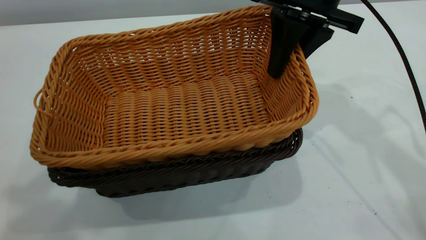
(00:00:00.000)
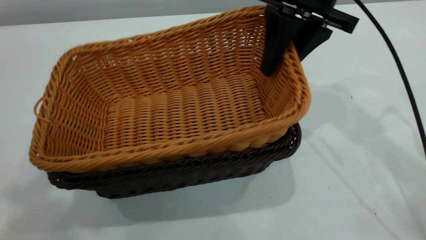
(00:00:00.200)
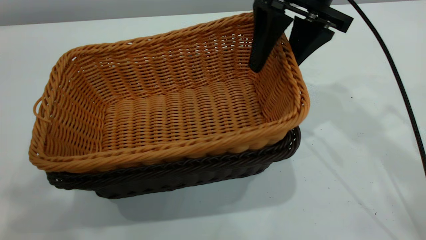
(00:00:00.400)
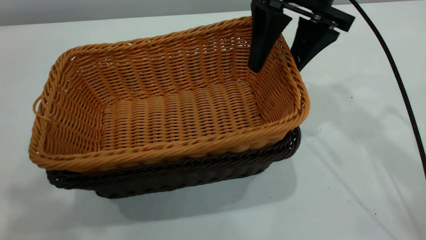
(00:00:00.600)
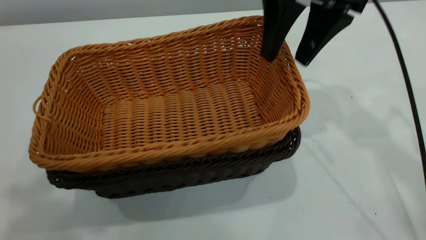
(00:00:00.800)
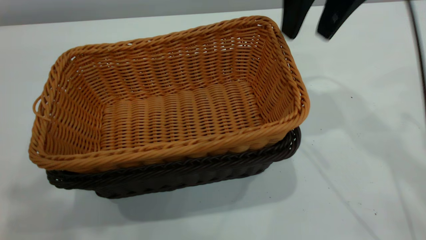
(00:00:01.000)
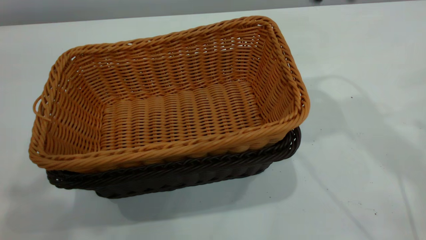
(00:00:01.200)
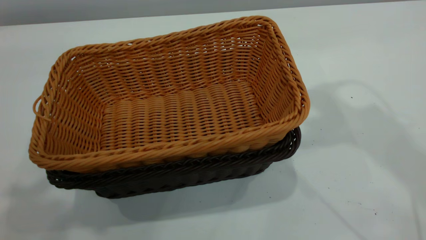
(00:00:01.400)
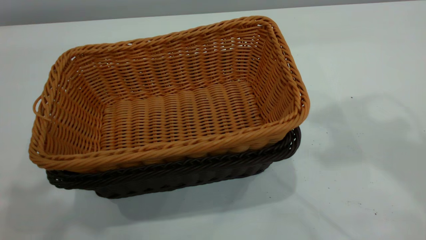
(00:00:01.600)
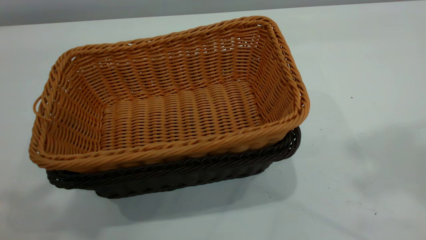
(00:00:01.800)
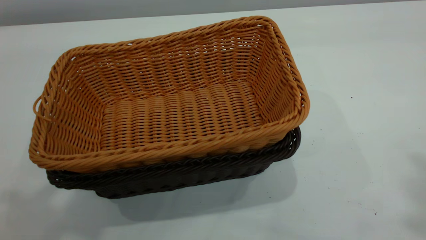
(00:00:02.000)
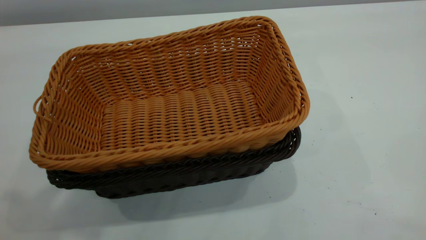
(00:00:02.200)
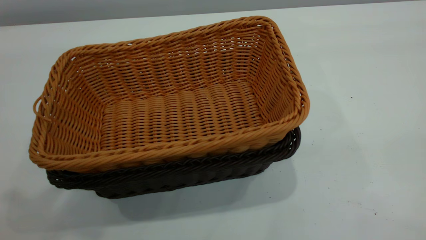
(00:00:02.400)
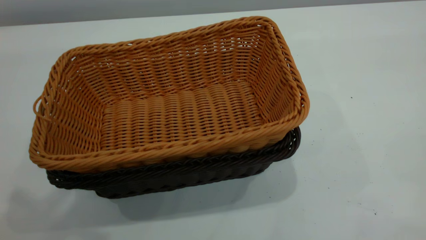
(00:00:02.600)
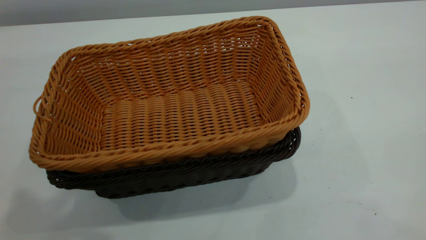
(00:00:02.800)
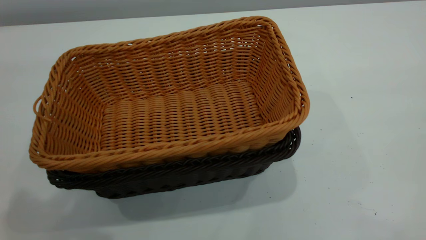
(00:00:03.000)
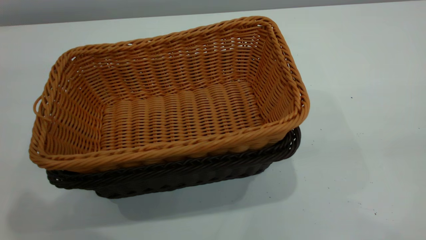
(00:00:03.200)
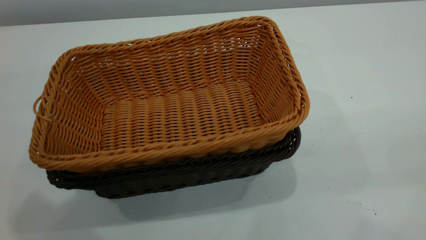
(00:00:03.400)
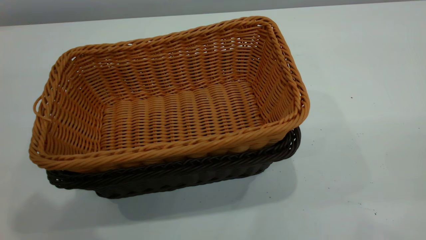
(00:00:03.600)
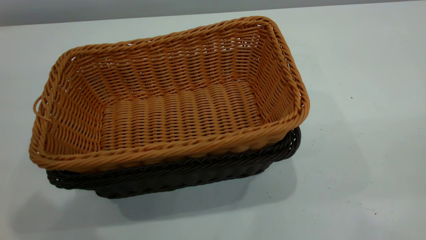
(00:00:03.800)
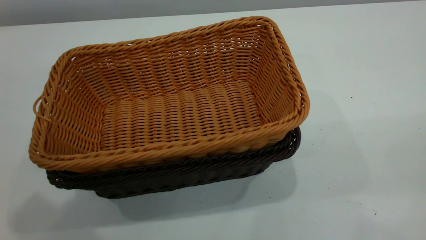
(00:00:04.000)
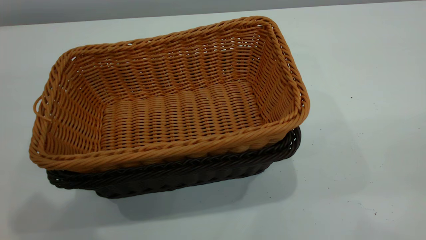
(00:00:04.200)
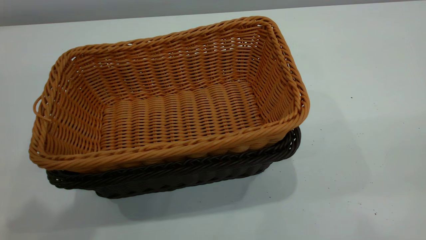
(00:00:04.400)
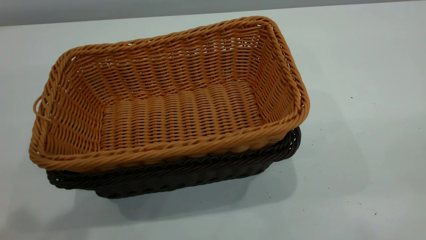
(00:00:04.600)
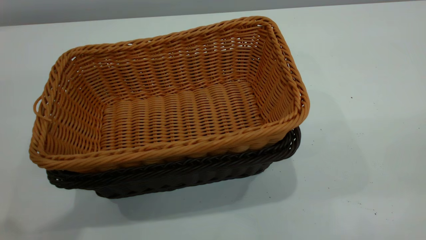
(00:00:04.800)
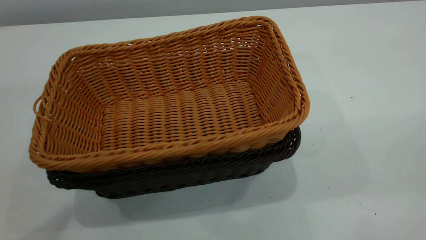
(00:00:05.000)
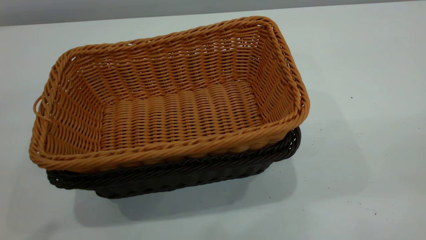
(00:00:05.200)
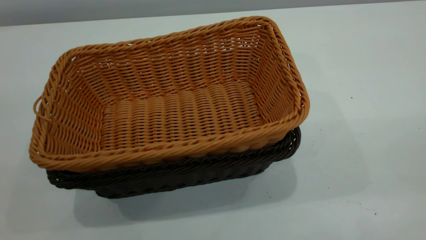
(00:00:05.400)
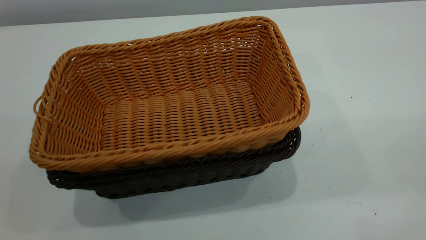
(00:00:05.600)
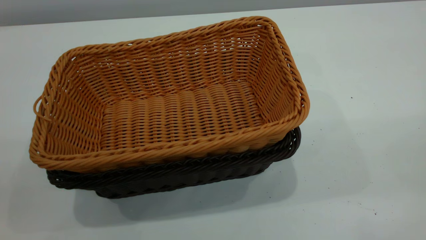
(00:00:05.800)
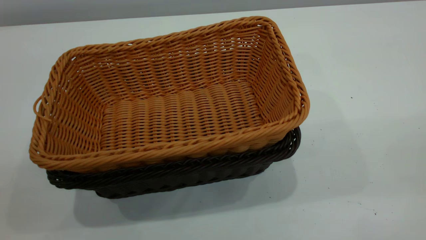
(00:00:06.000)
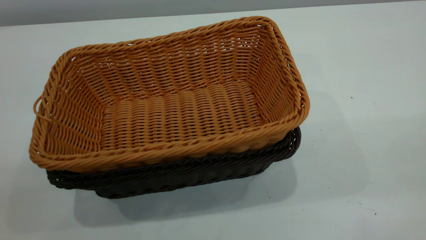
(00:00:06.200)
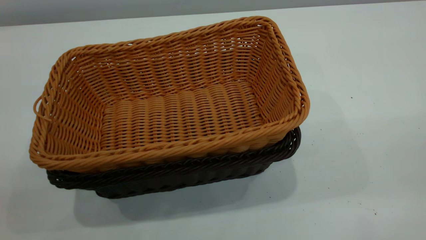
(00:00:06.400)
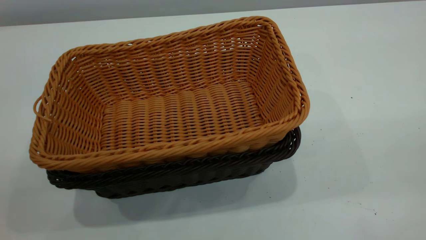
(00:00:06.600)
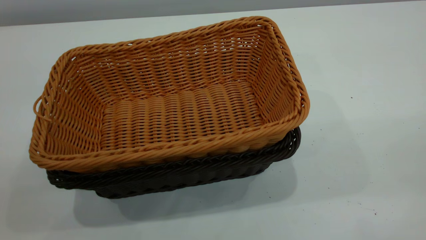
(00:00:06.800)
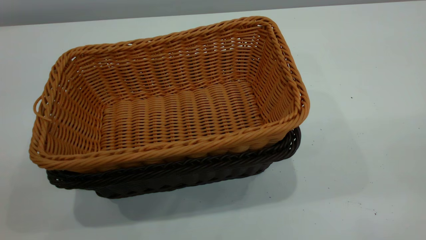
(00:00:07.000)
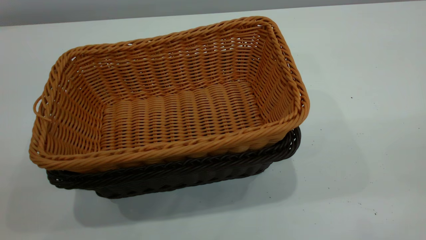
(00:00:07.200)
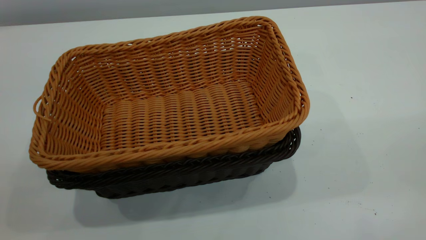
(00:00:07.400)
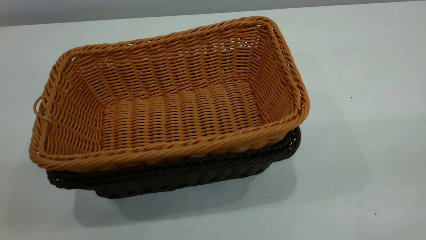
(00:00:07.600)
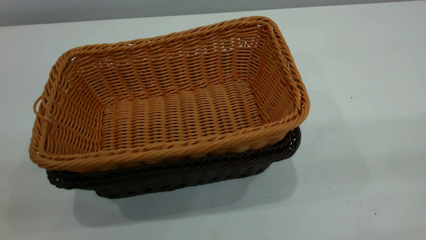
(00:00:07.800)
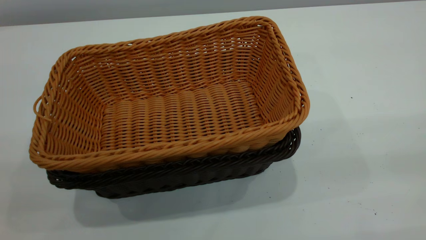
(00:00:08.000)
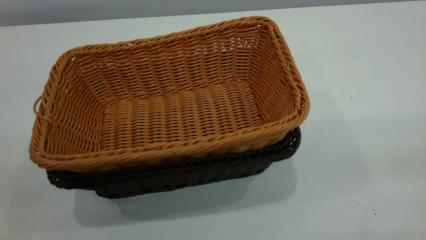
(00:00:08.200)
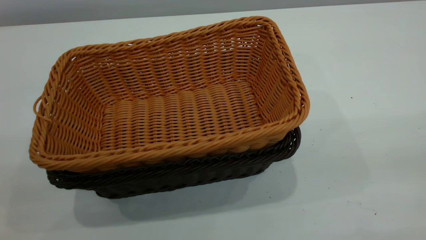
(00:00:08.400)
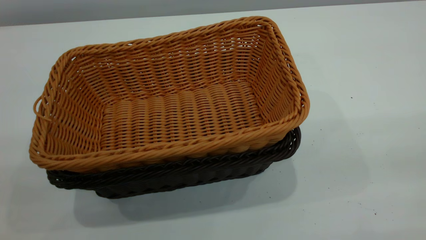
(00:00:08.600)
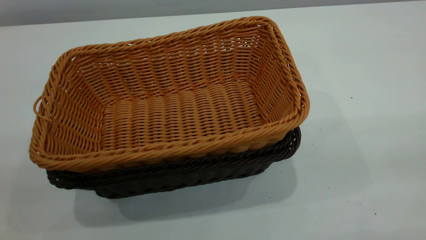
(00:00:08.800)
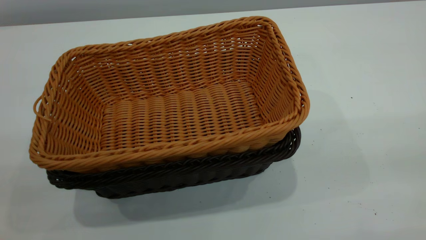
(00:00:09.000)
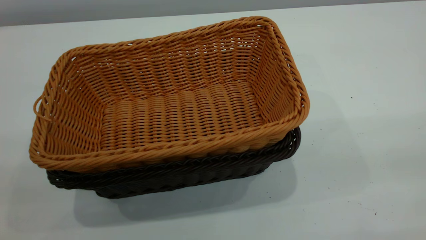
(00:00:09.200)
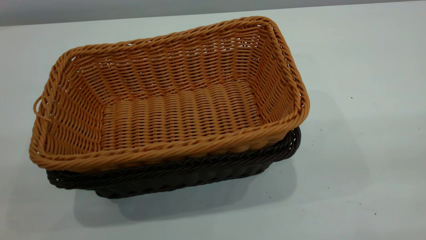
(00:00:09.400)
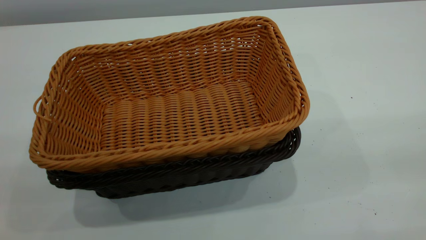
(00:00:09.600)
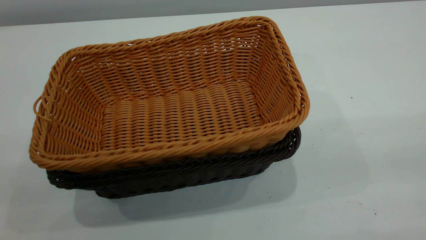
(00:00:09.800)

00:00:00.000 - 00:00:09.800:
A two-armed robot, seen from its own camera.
Task of the whole recording: the left gripper grasp the black basket and place it in the center of the table, the right gripper grasp the brown basket and place it inside the black one.
00:00:00.000 - 00:00:01.400: The right gripper heads upward, covering approximately 15 cm, and opens its fingers.
00:00:08.400 - 00:00:09.800: Both grippers stay put.
